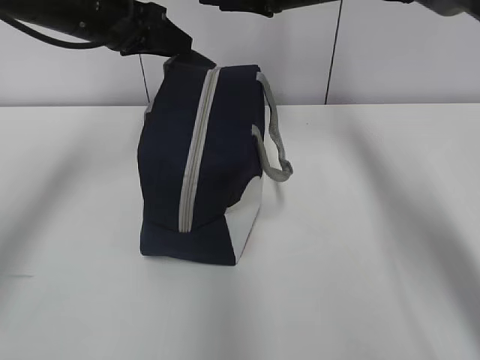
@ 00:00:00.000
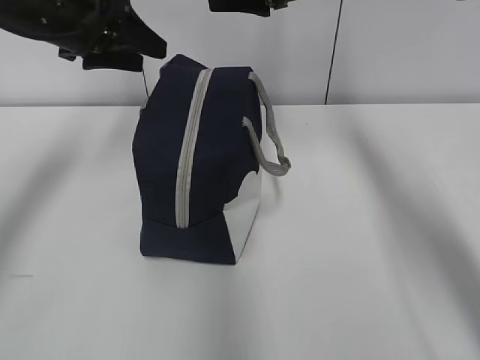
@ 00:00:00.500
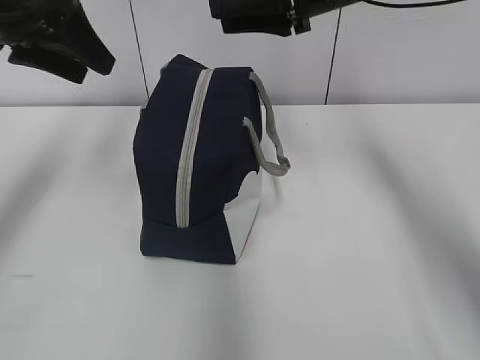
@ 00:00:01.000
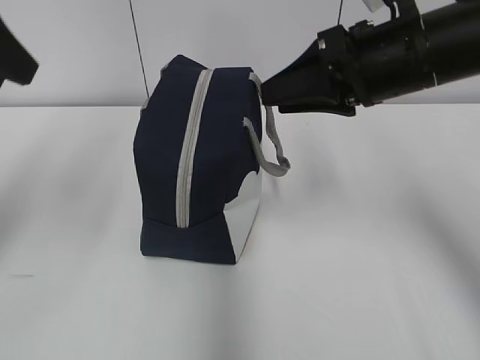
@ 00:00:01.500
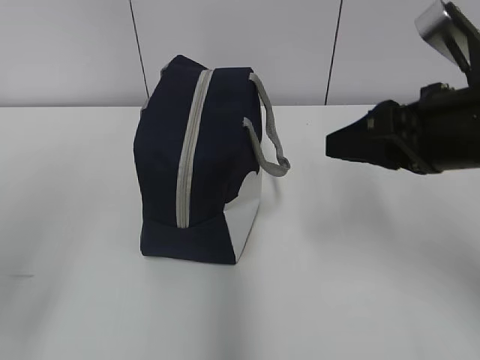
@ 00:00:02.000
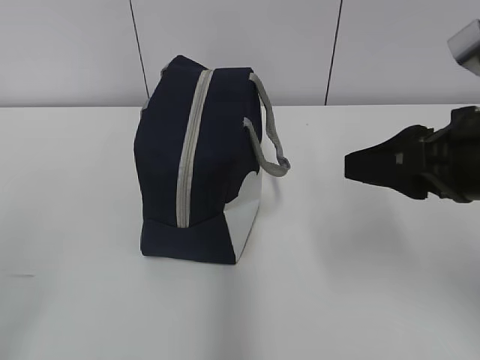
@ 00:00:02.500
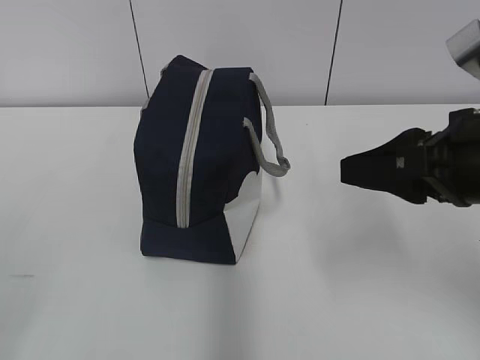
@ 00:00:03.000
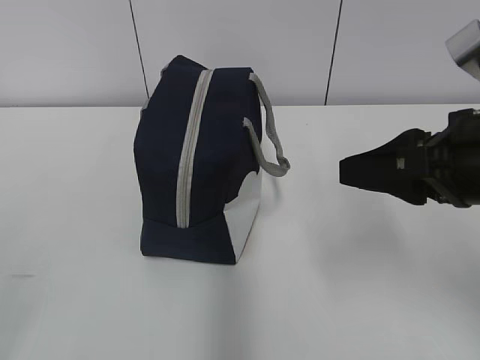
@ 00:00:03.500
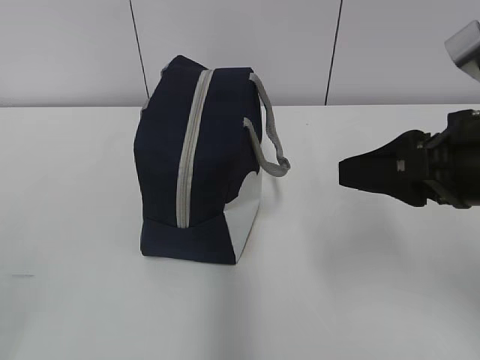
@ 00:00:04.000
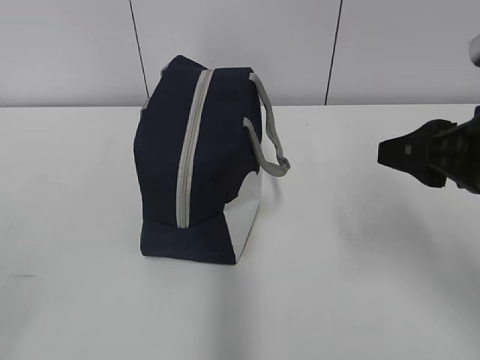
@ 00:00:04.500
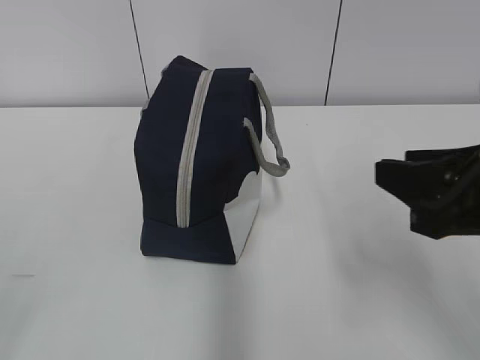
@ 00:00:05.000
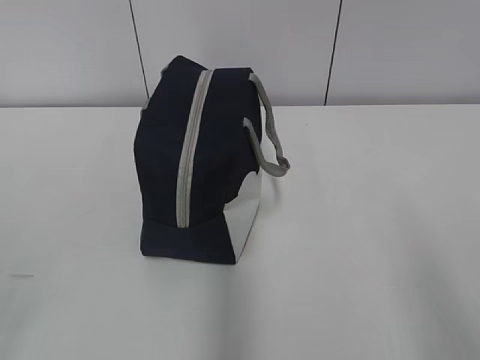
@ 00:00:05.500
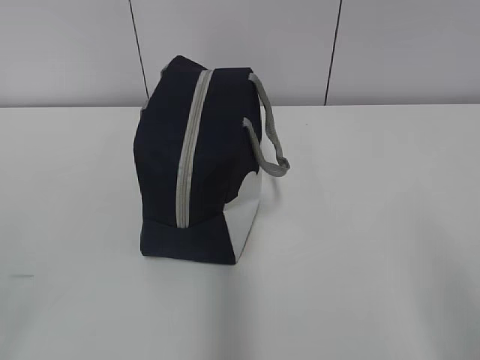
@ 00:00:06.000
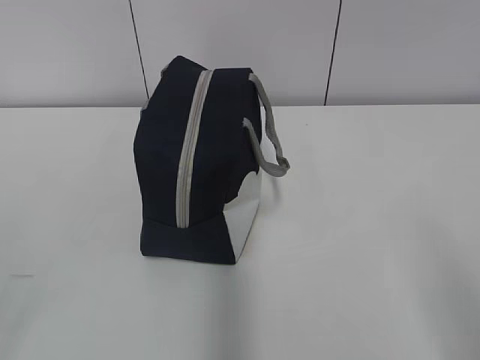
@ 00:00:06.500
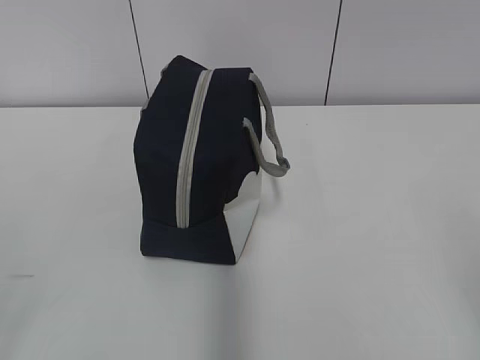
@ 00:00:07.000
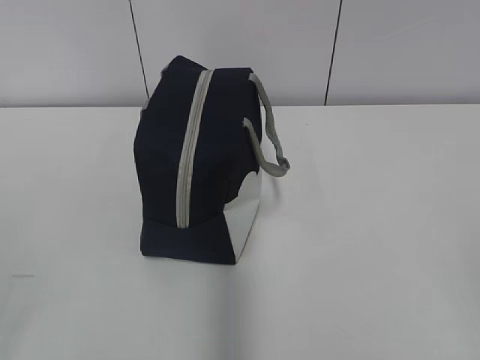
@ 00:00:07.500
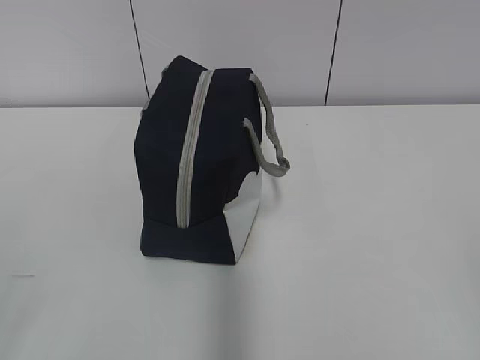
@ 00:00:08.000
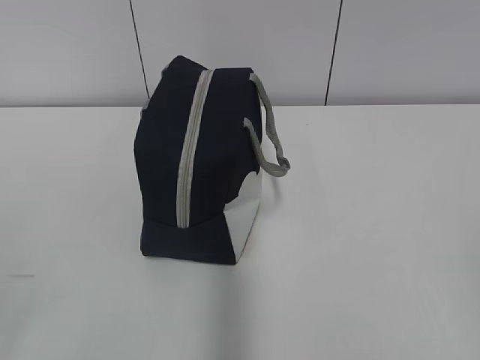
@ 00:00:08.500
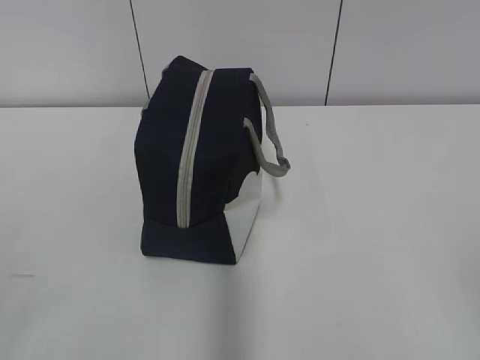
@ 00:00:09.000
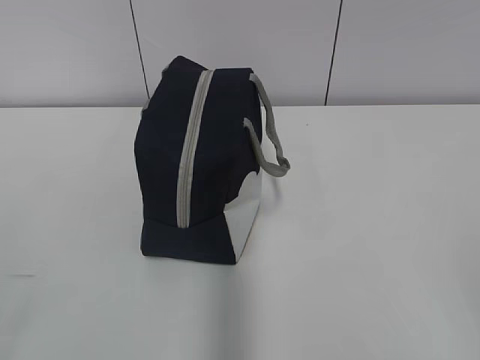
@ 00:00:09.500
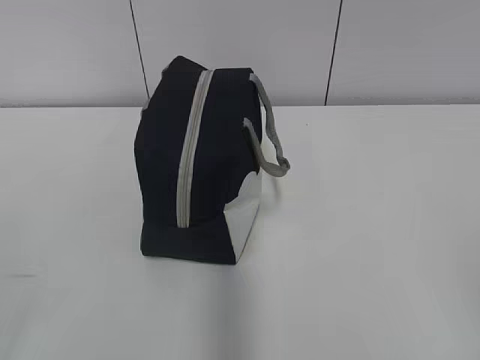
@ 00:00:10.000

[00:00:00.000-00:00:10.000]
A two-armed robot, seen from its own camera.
00:00:00.000 to 00:00:02.000: The grippers both shift backward by roughly 25 cm. The right gripper closes up; the left gripper opens its fingers.
00:00:04.000 to 00:00:06.000: The right gripper moves backward and to the right, about 20 cm.
00:00:06.000 to 00:00:08.000: The right gripper is displaced backward by about 5 cm.
